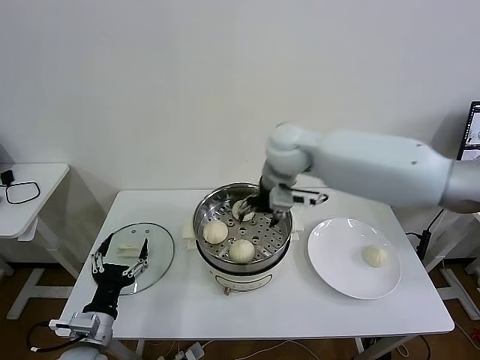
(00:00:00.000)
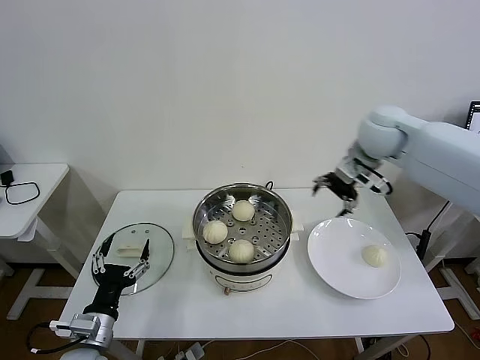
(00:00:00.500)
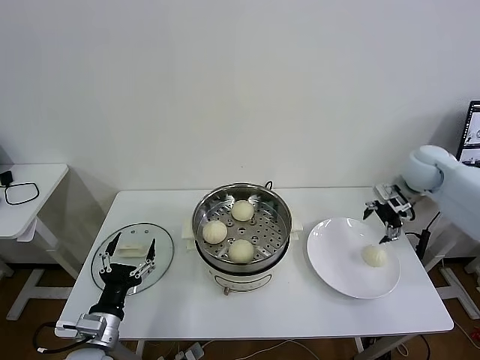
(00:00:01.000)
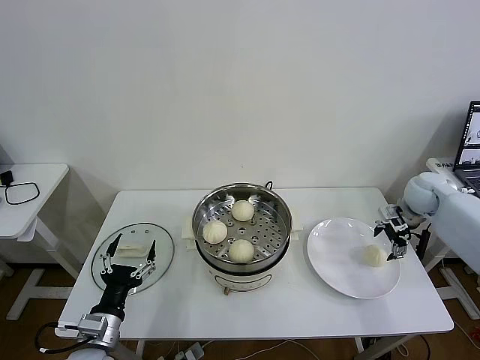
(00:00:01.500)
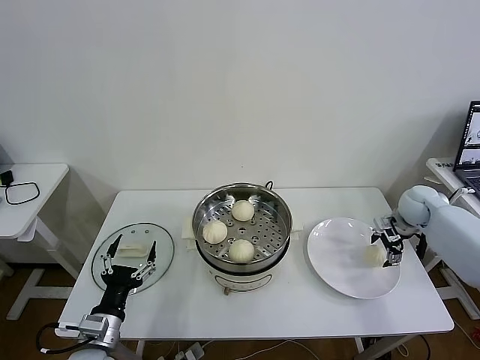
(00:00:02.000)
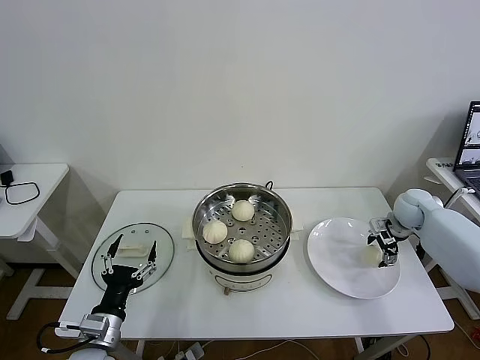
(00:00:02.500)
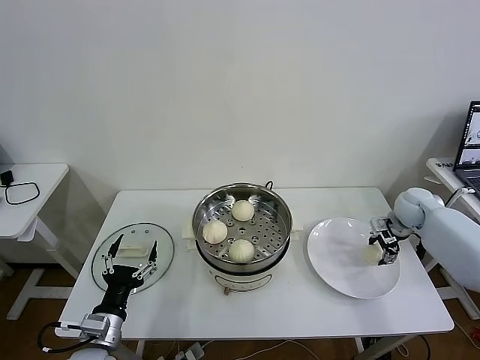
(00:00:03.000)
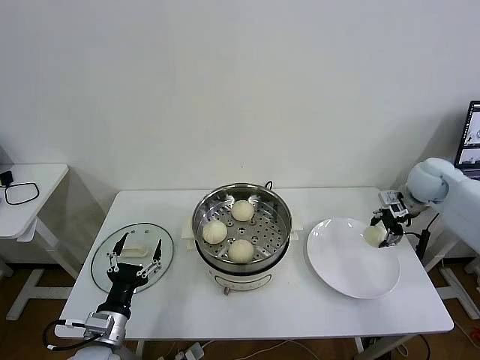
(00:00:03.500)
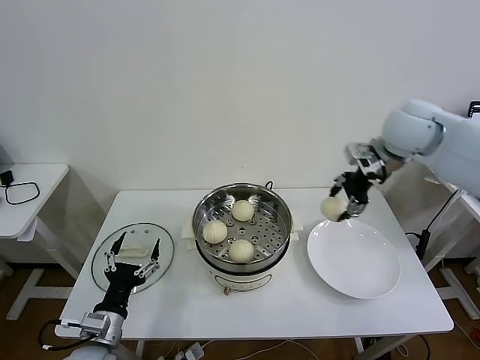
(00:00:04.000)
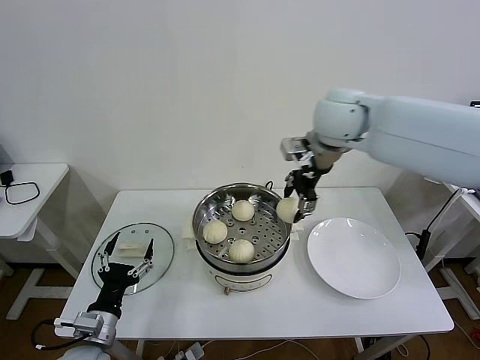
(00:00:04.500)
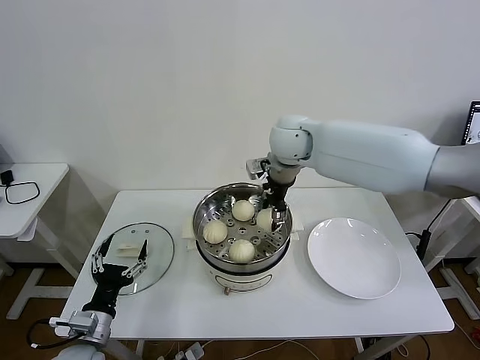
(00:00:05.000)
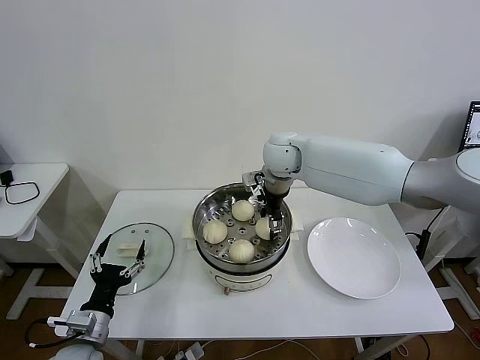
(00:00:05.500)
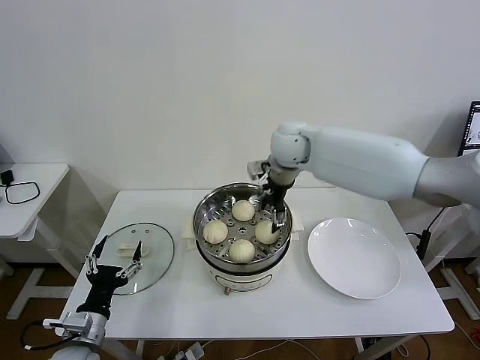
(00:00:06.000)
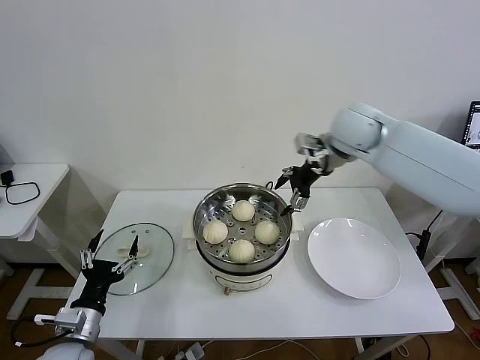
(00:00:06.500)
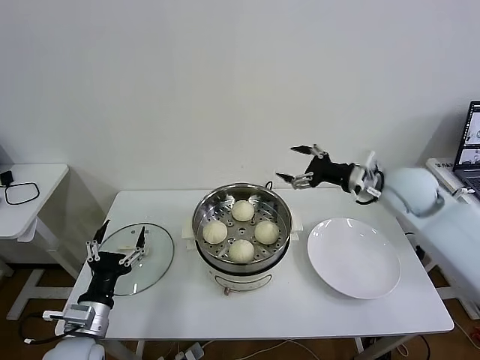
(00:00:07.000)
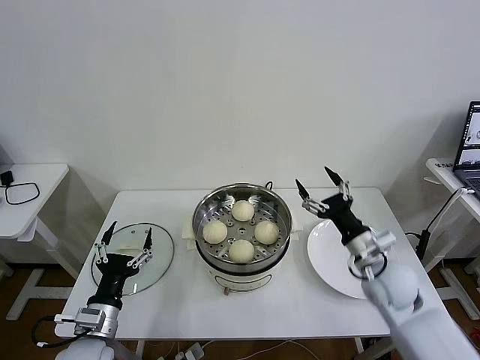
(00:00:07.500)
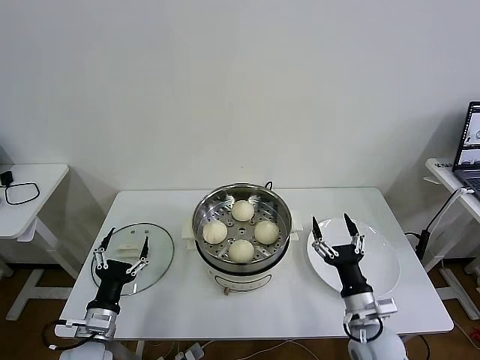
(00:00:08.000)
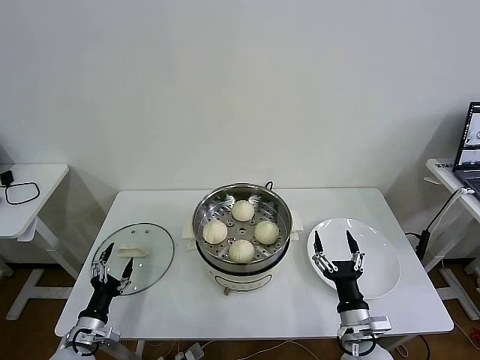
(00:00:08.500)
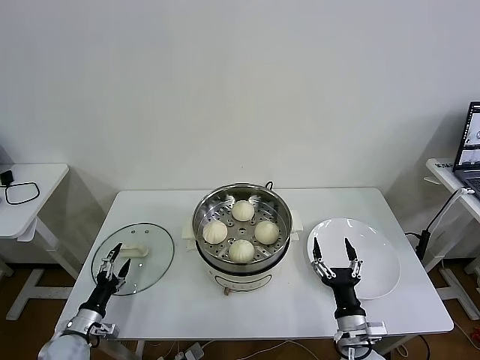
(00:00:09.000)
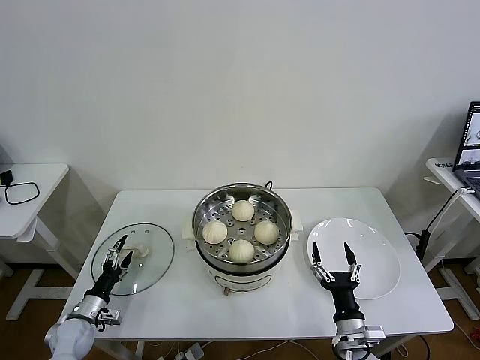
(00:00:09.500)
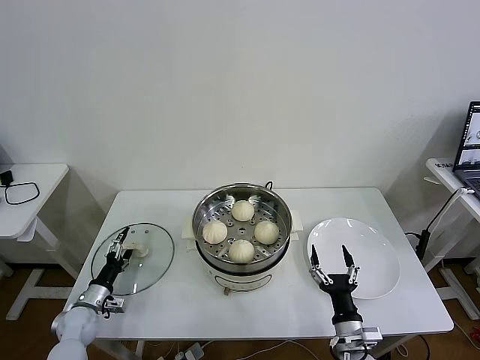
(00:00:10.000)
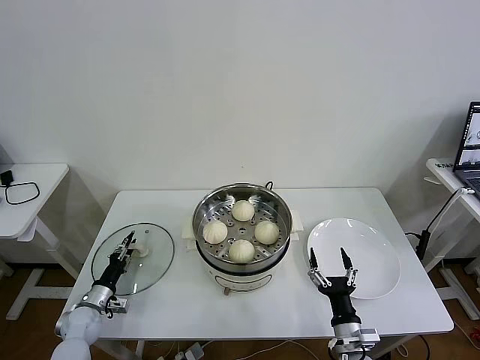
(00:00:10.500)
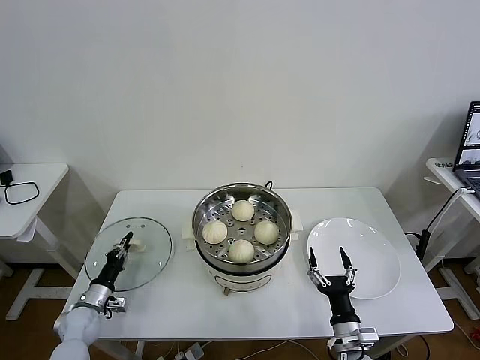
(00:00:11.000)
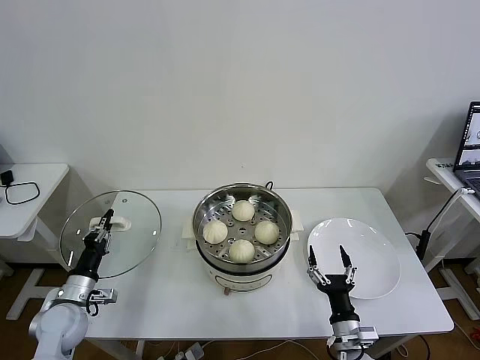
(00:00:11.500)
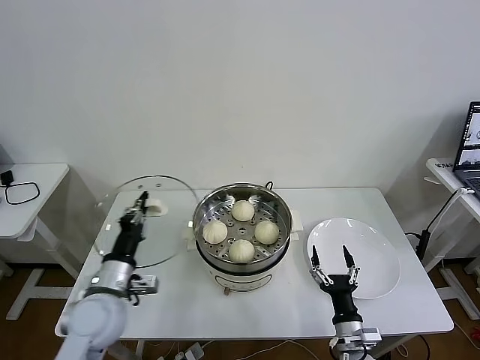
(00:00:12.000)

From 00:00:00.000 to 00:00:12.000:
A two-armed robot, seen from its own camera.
Task of the whole recording: take steamed baozi put them in steamer then cover it.
Step, from 00:00:00.000 to 00:00:02.500: Grasp the baozi in the plate with right gripper.
Step, from 00:00:03.000 to 00:00:05.500: Place the baozi on the steamer with right gripper.
Step, from 00:00:06.000 to 00:00:10.500: Grasp the pot lid with left gripper.
From 00:00:00.000 to 00:00:02.000: The right gripper is displaced to the right and downward by roughly 40 cm.
From 00:00:02.000 to 00:00:04.000: The right gripper is displaced upward and to the left by roughly 30 cm, and closes up.
From 00:00:04.000 to 00:00:06.000: The right gripper heads to the left and downward, covering roughly 20 cm, and opens.
From 00:00:06.000 to 00:00:08.000: The right gripper goes about 50 cm backward, downward and to the right.
From 00:00:08.000 to 00:00:10.000: The left gripper heads downward, to the left and forward, covering some 20 cm, while the right gripper travels downward by approximately 5 cm.
From 00:00:10.000 to 00:00:12.000: The left gripper is displaced upward and to the right by roughly 25 cm, and closes up.

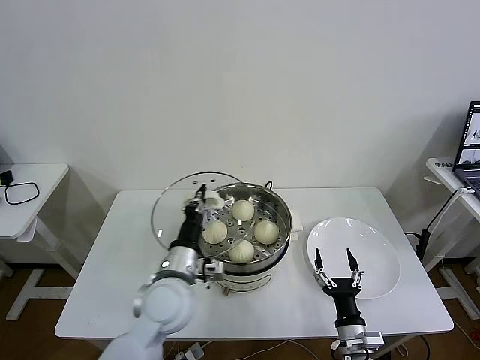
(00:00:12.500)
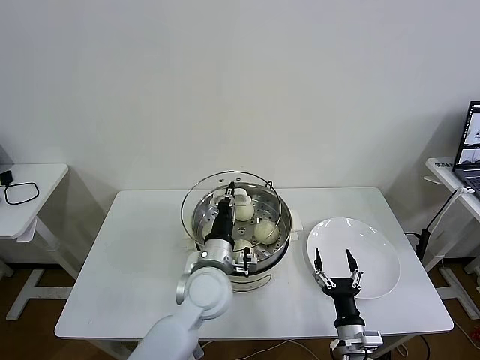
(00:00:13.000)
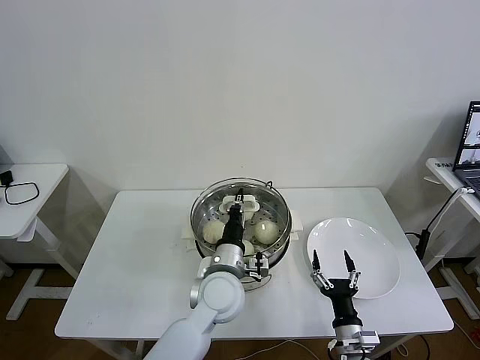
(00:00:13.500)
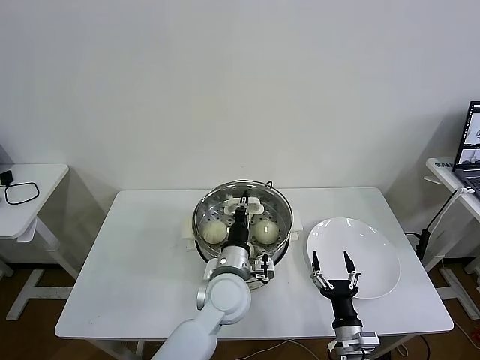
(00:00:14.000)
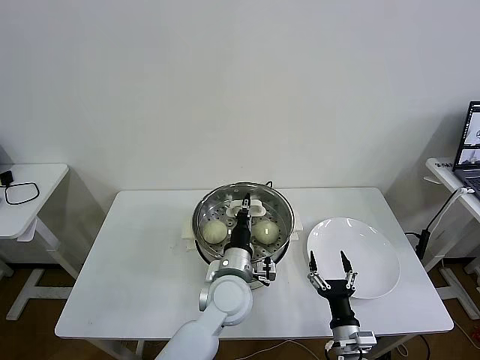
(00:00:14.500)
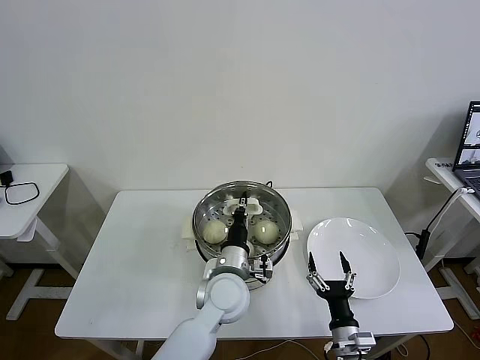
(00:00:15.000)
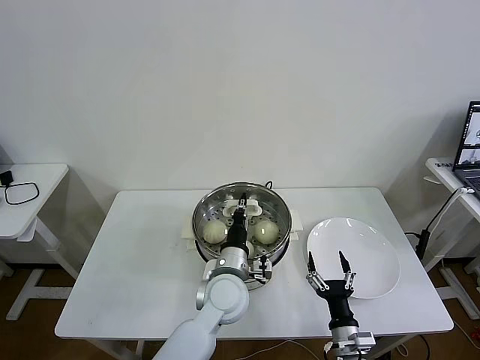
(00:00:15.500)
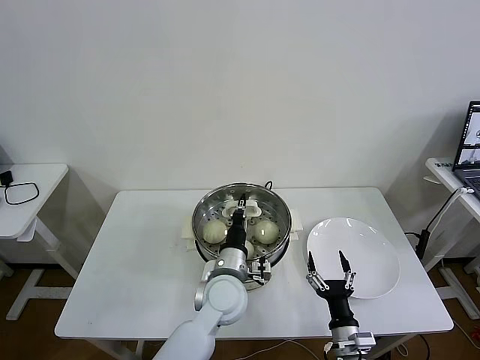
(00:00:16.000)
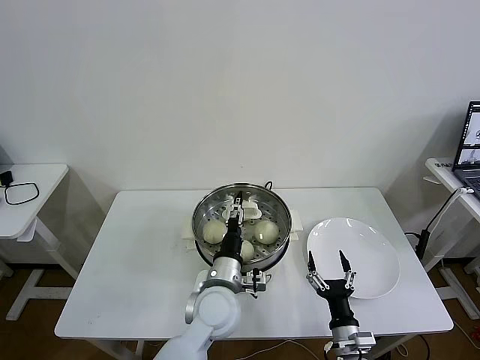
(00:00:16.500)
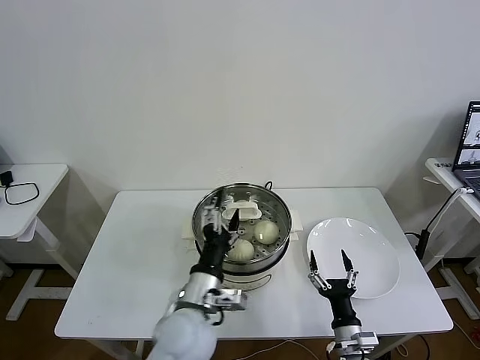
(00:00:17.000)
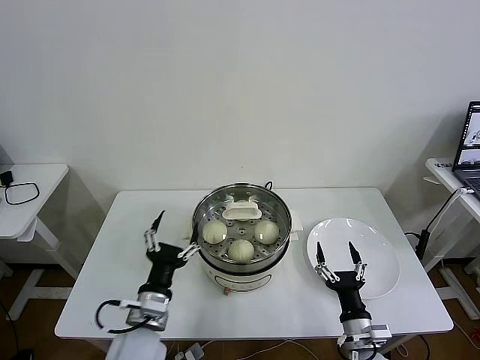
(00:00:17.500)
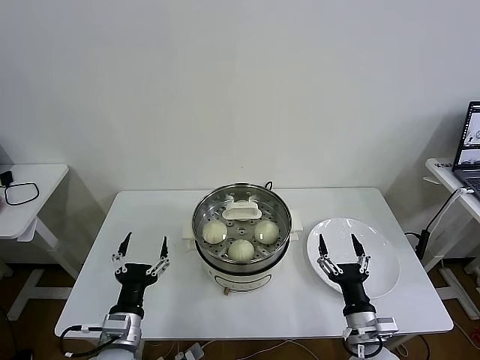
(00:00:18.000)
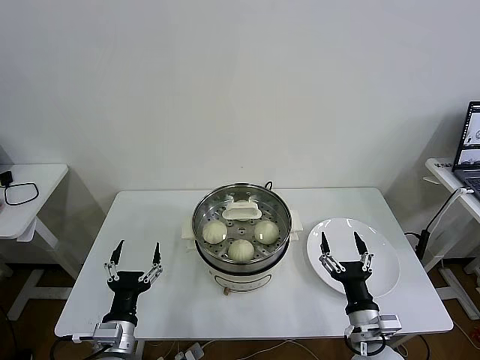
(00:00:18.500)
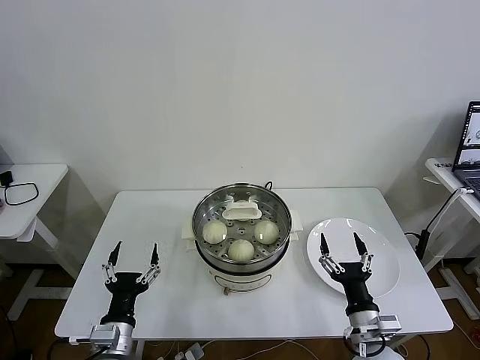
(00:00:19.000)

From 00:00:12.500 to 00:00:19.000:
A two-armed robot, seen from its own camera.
Task of the whole recording: take steamed baozi put them in steamer then cover it.
Step, from 00:00:12.500 to 00:00:16.000: Place the pot lid on the steamer with left gripper.
From 00:00:12.500 to 00:00:14.500: The left gripper travels to the right by approximately 10 cm.
From 00:00:14.500 to 00:00:17.000: The left gripper goes approximately 10 cm backward and to the left, and opens up.
From 00:00:17.000 to 00:00:19.000: The right gripper heads upward, covering roughly 10 cm; the left gripper shifts about 20 cm to the left, downward and backward.
